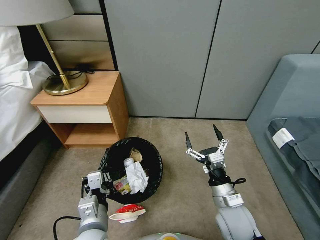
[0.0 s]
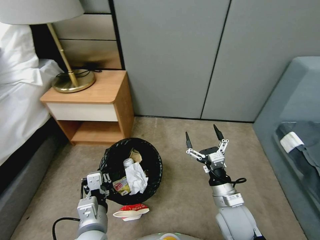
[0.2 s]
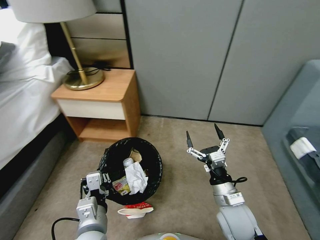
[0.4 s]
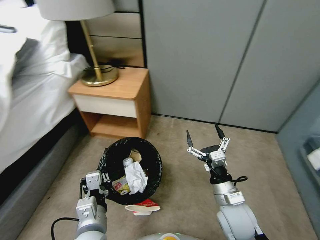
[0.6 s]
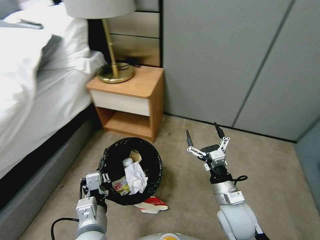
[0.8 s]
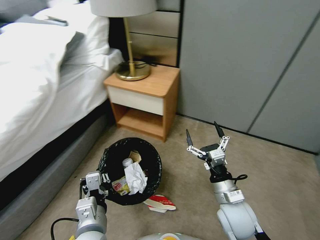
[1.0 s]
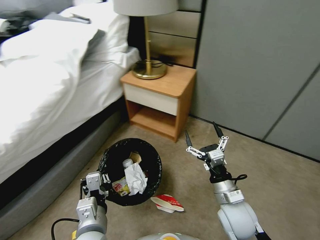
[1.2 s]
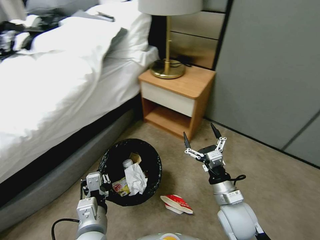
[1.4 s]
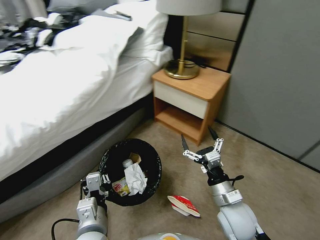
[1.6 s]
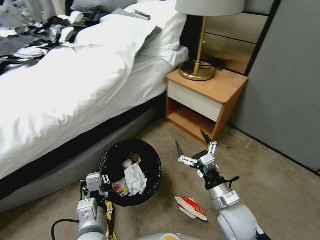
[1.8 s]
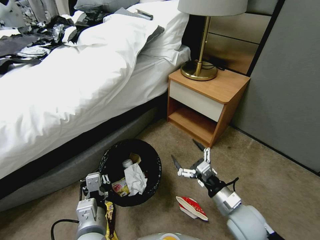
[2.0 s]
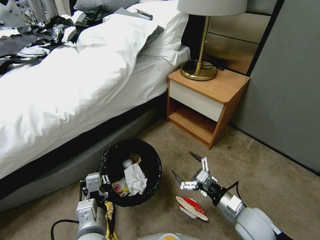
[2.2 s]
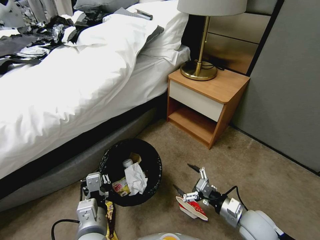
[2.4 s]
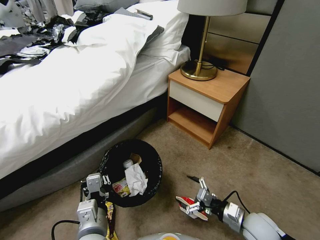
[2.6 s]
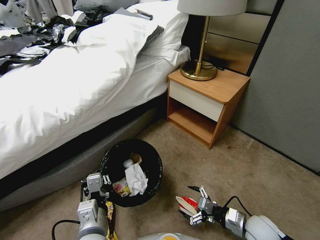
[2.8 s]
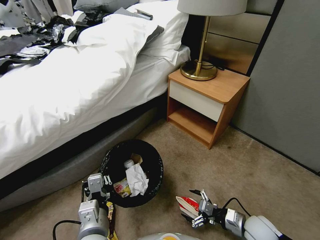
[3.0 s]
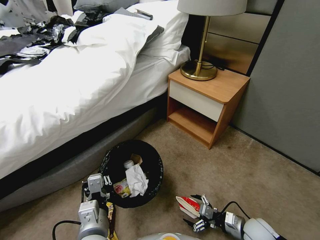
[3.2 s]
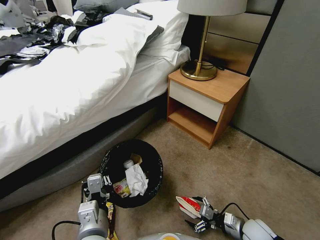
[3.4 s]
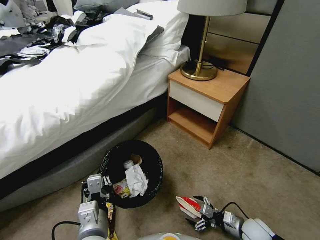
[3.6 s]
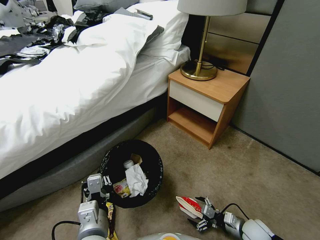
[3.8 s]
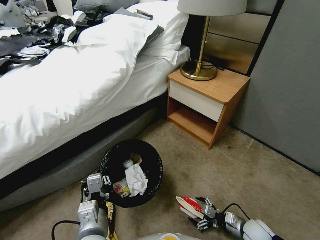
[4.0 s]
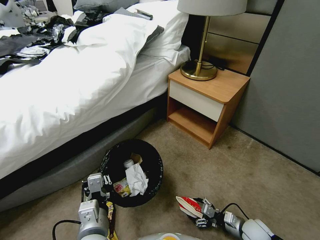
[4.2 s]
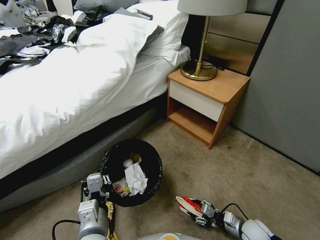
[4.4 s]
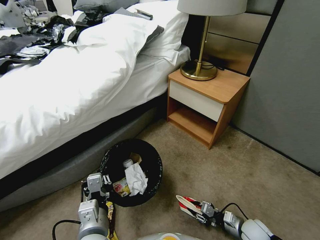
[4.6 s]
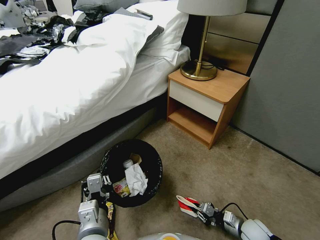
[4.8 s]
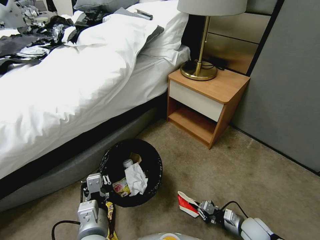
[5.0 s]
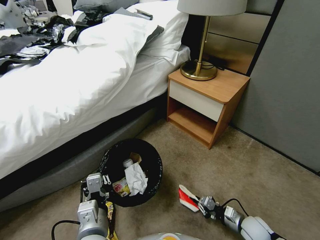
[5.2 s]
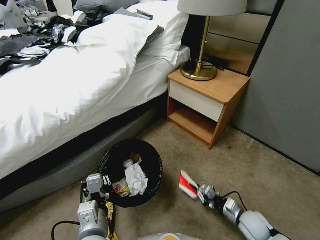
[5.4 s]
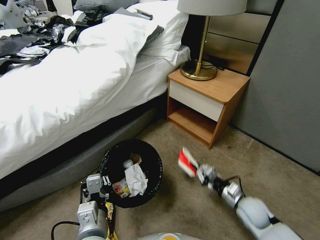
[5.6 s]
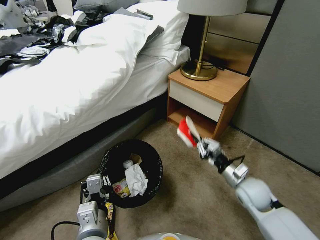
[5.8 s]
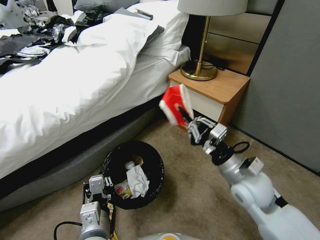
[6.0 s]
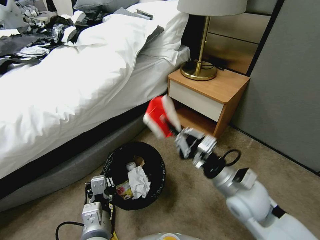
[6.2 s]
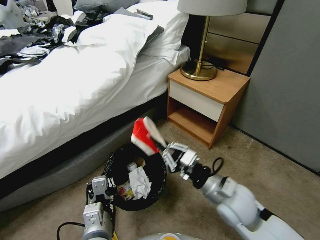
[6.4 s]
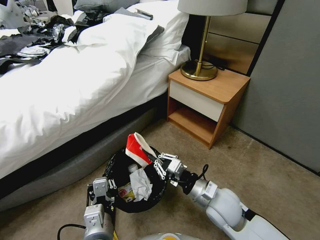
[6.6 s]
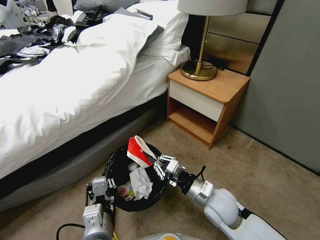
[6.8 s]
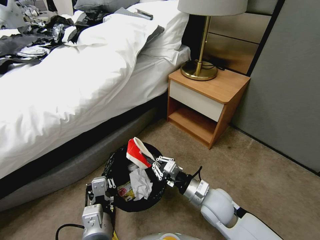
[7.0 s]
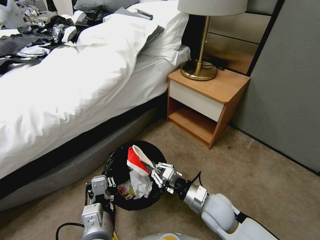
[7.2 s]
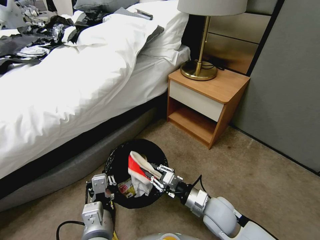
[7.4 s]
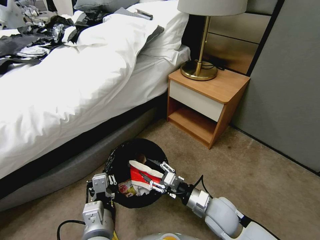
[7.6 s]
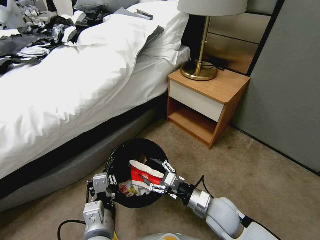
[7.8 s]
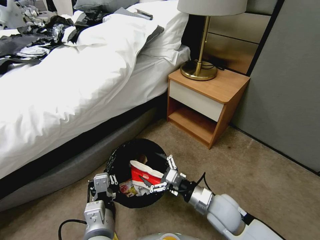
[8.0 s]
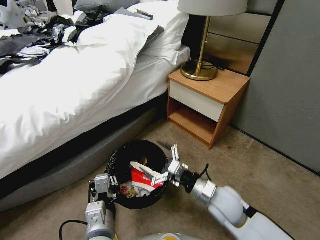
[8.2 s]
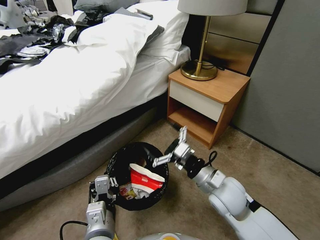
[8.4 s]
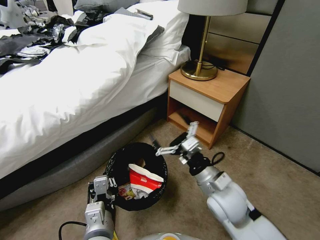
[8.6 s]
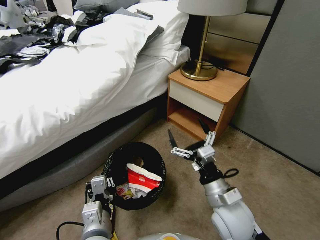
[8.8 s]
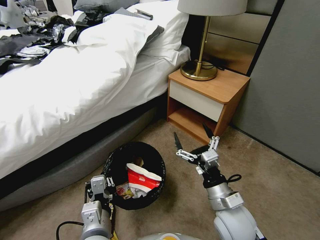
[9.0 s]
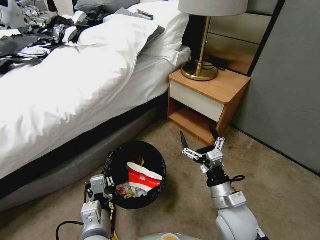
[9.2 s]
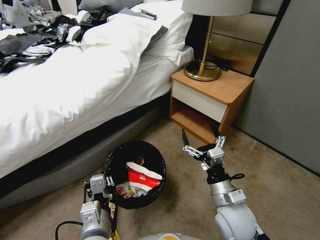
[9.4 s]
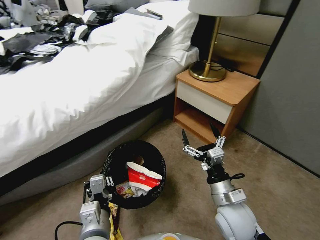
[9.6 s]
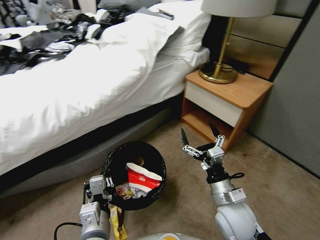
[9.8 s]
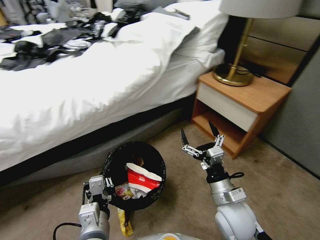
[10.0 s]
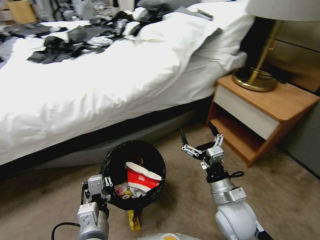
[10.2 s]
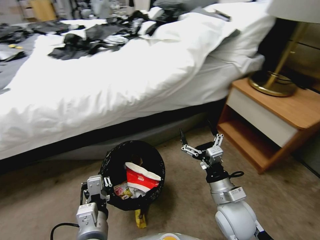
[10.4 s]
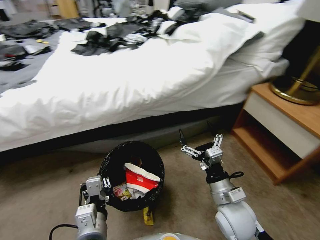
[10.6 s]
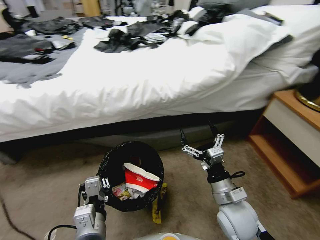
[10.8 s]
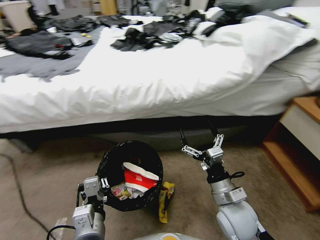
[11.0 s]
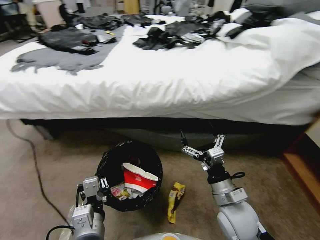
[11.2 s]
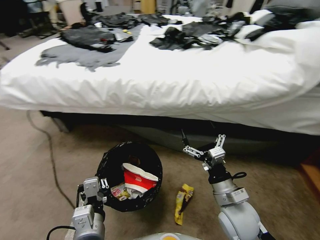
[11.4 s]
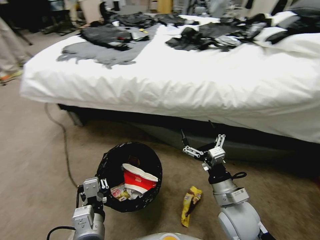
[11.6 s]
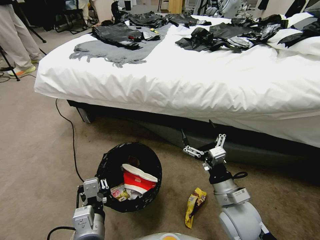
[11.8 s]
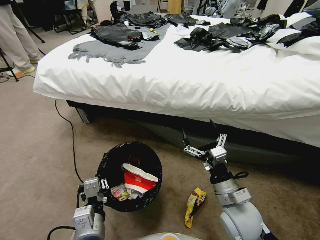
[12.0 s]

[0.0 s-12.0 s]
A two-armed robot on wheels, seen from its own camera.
Task of the whole recording: Pick up the trash bin, then pick up the garbage from the floor and place it into the trash bin.
1.6 to 3.0 s: The right gripper moves to the right and downward, roughly 15 cm.
3.0 to 4.4 s: The right gripper goes approximately 5 cm downward, and closes.
4.4 to 6.0 s: The right gripper travels upward by about 25 cm, and closes up.
6.0 to 7.6 s: The right gripper heads downward, to the left and backward, covering about 15 cm, and opens its fingers.
7.6 to 9.0 s: The right gripper heads upward, covering roughly 5 cm, and opens up.

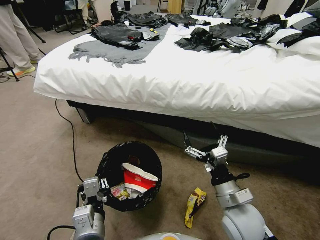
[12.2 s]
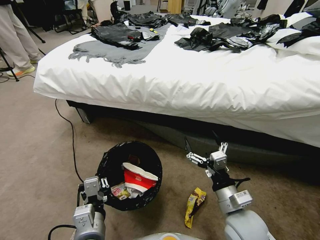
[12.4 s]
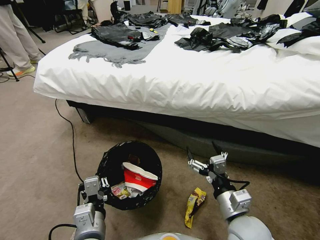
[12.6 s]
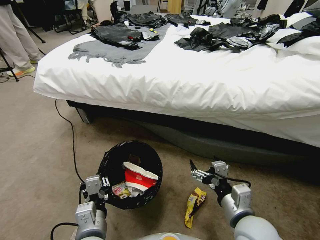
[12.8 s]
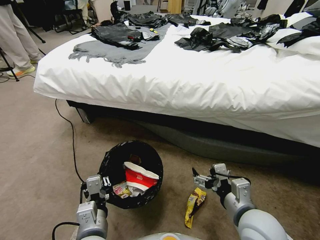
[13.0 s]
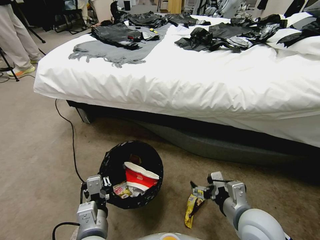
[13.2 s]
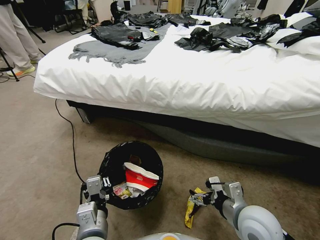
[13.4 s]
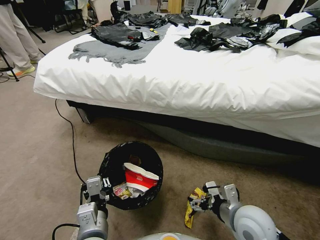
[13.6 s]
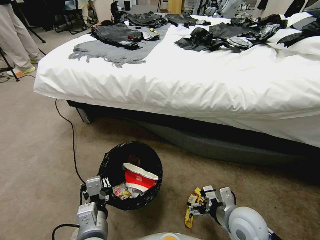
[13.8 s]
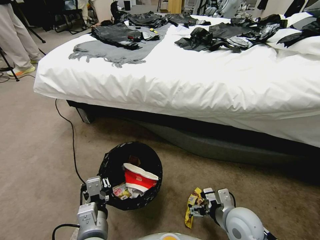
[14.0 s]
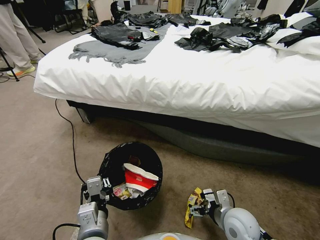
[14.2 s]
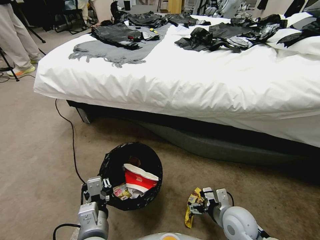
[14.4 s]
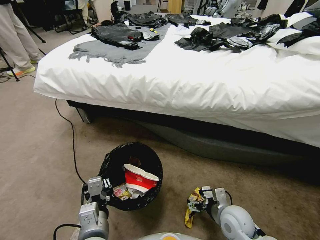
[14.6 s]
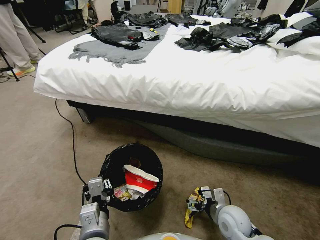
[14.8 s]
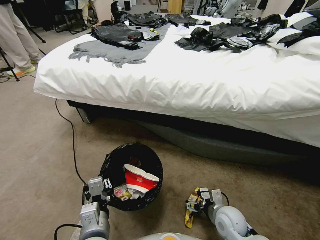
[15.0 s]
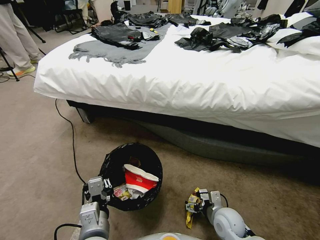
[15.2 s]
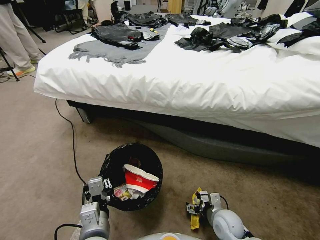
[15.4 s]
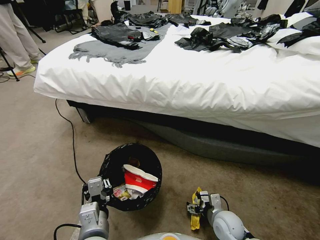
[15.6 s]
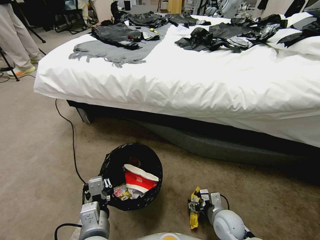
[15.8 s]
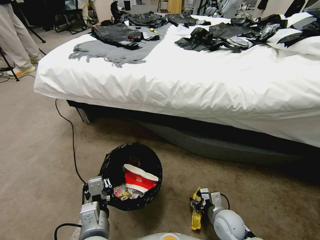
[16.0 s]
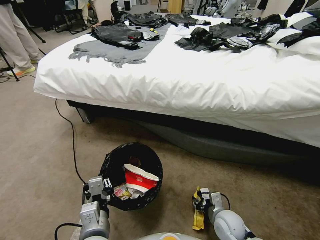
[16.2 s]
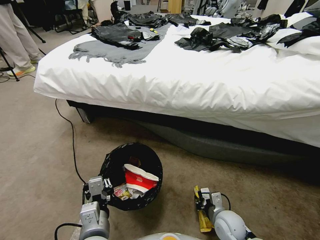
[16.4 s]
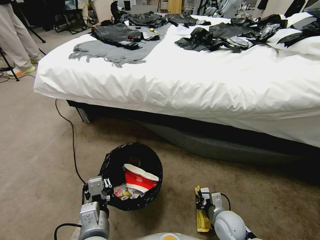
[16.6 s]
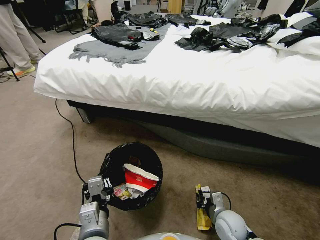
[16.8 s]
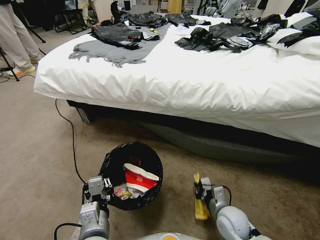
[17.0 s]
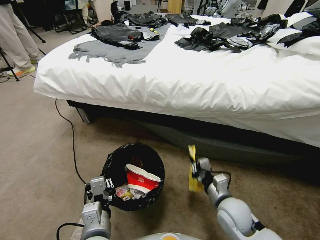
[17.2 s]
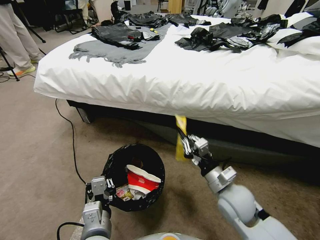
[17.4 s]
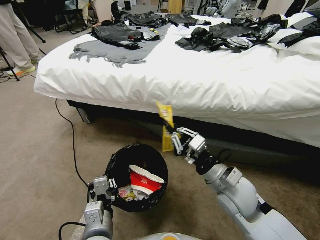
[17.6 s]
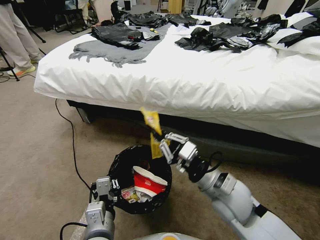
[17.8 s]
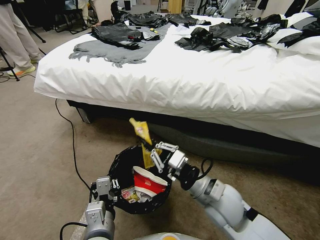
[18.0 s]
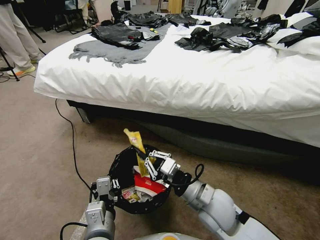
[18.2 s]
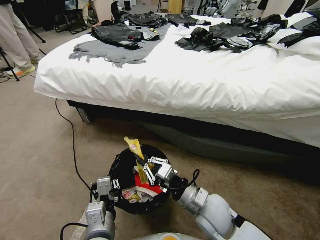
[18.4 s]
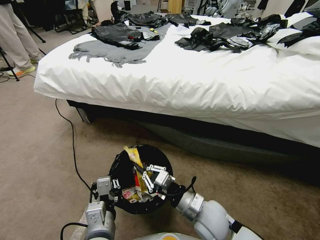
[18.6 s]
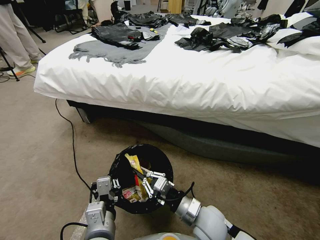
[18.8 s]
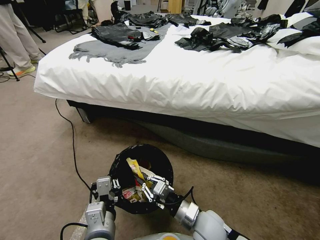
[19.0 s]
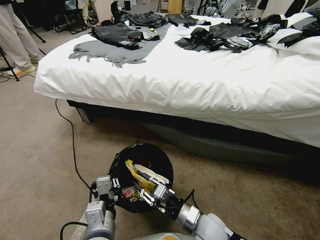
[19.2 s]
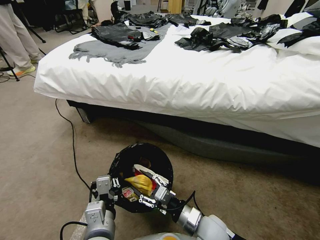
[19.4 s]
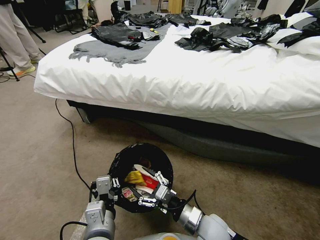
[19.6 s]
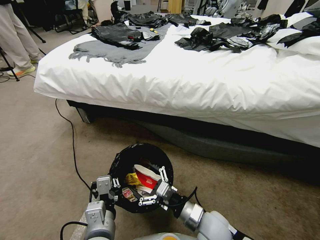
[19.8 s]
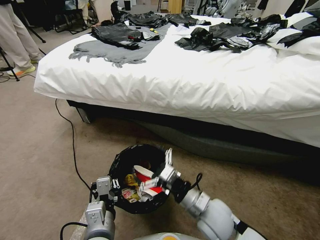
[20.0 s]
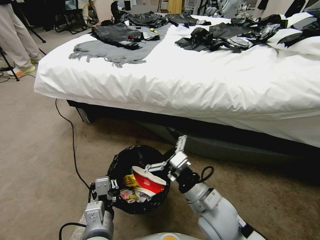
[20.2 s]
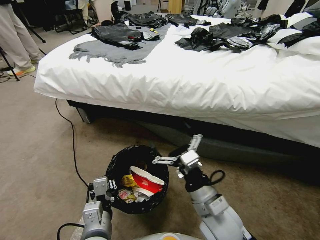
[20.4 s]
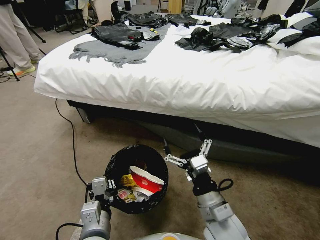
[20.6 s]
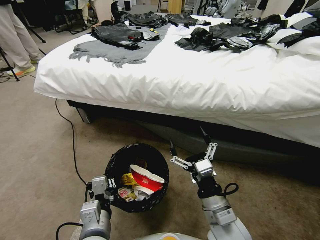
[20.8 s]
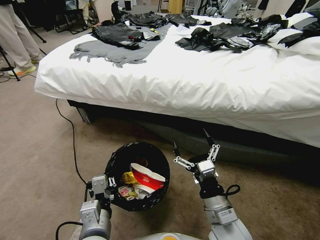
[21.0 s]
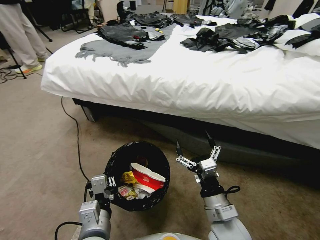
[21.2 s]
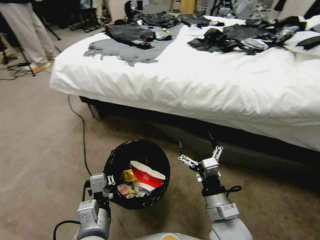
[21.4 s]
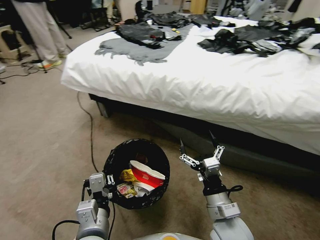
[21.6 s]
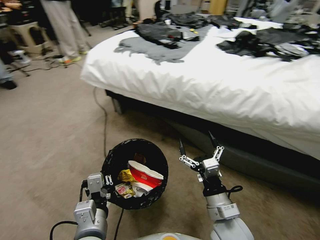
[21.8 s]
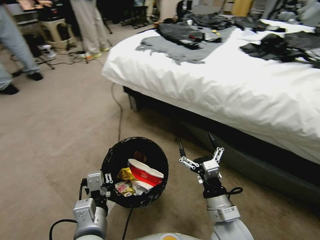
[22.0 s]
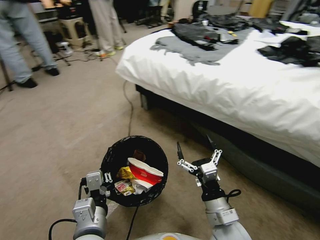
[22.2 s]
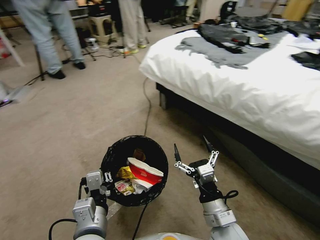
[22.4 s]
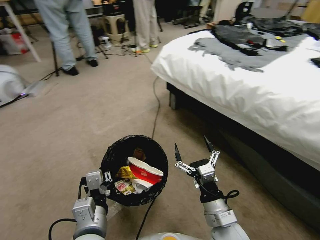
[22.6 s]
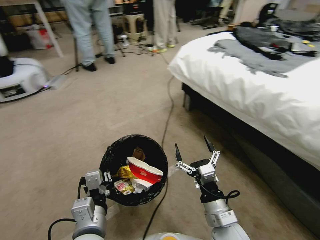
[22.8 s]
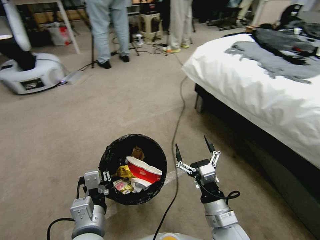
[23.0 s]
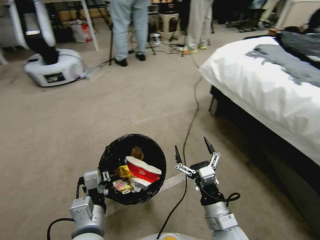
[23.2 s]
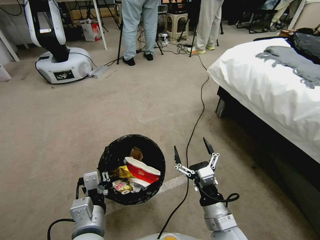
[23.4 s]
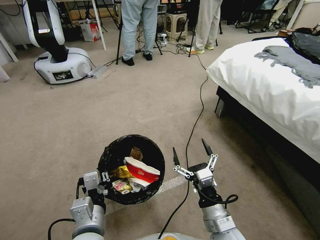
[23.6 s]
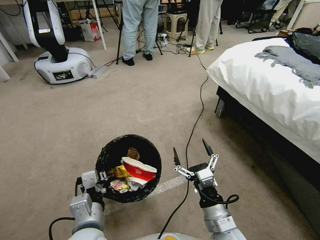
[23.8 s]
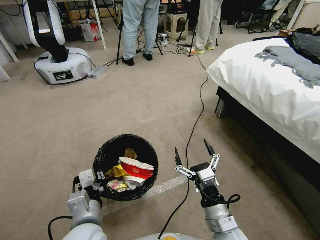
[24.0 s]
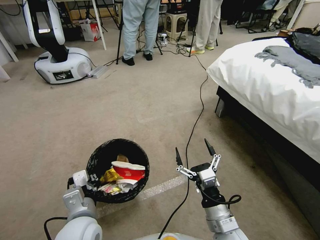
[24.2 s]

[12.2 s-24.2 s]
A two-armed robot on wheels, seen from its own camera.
Task of the whole recording: Pick up the trash bin, then pick up the garbage from the floor and place it into the trash bin.
13.8 to 15.2 s: The right gripper moves downward, about 10 cm.
15.2 to 16.6 s: The right gripper closes its fingers.
16.6 to 18.2 s: The right gripper shifts roughly 20 cm upward and to the left.
18.2 to 19.8 s: The right gripper heads downward, covering roughly 10 cm, and opens up.
19.8 to 21.2 s: The right gripper heads upward, covering about 5 cm.
22.6 to 24.2 s: The left gripper shifts by approximately 5 cm.
